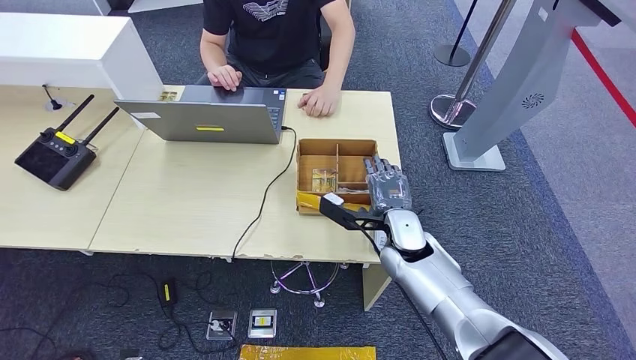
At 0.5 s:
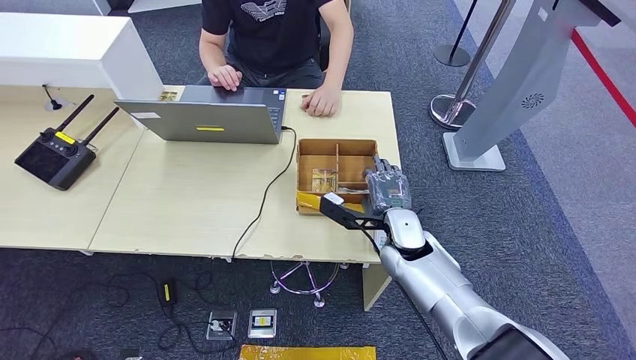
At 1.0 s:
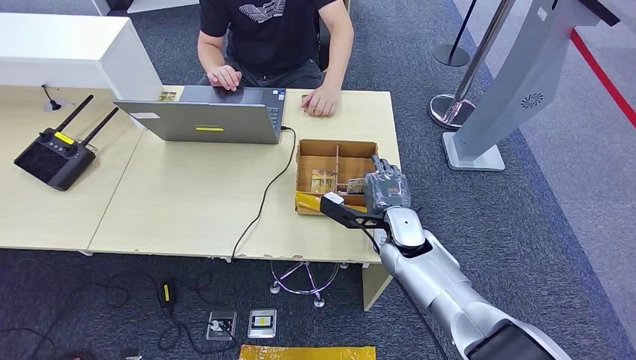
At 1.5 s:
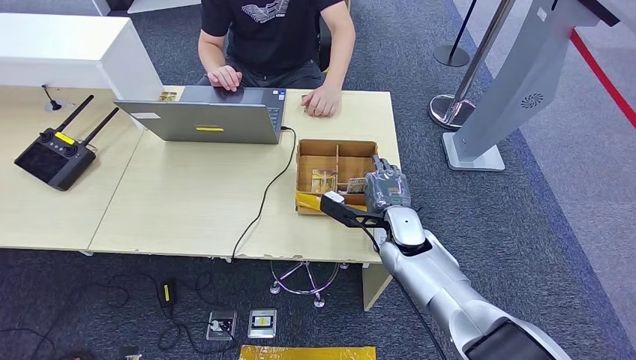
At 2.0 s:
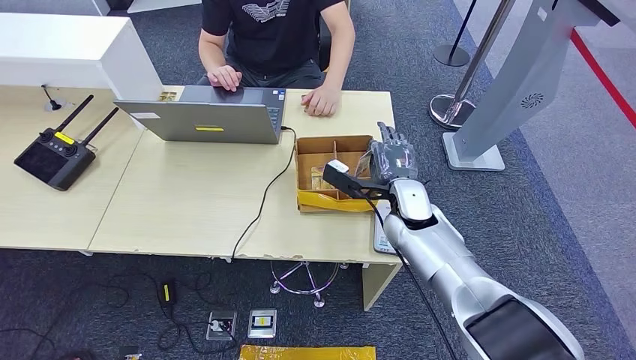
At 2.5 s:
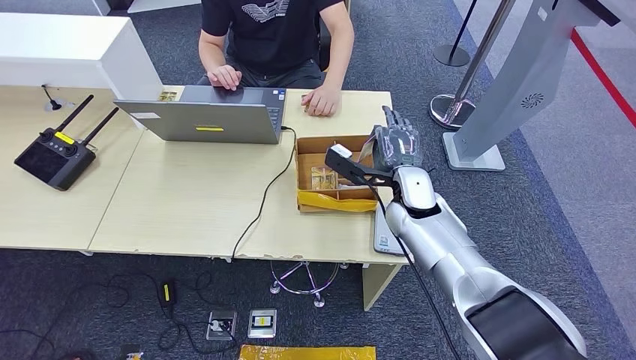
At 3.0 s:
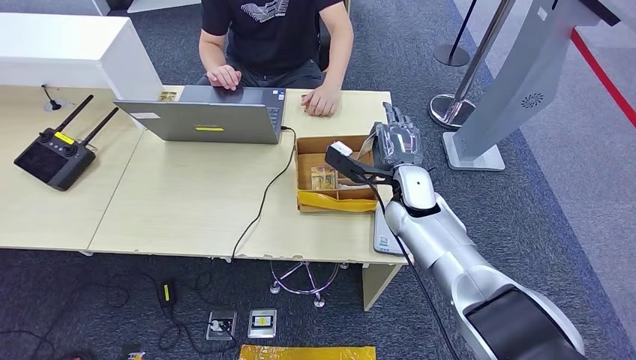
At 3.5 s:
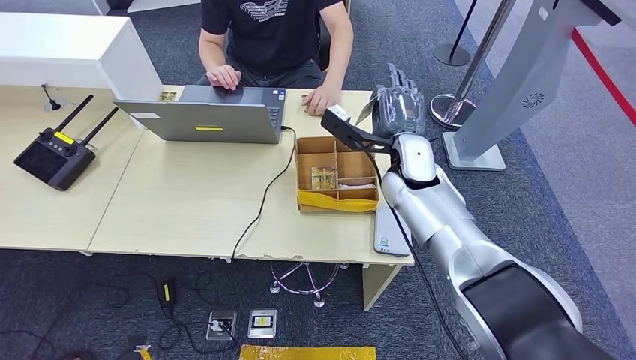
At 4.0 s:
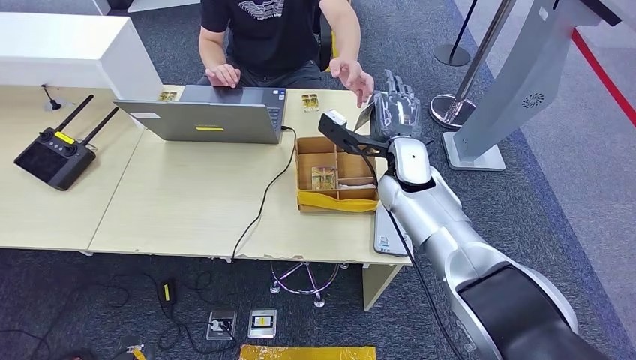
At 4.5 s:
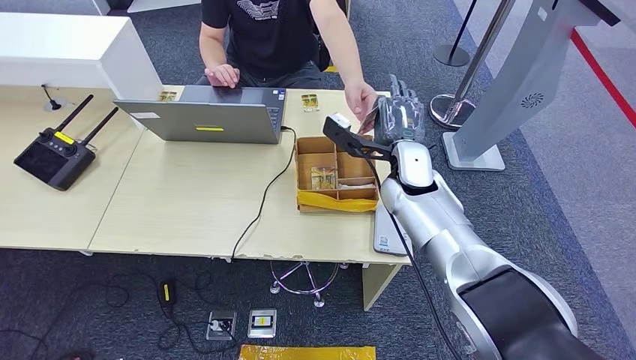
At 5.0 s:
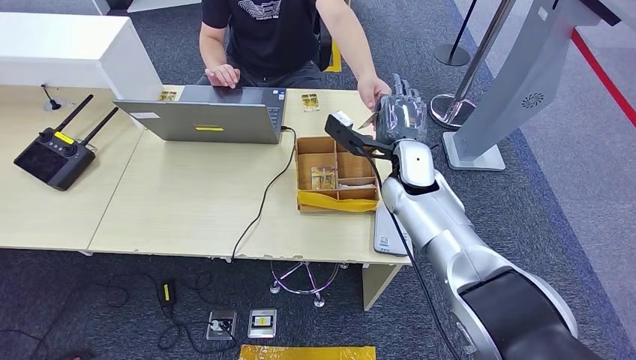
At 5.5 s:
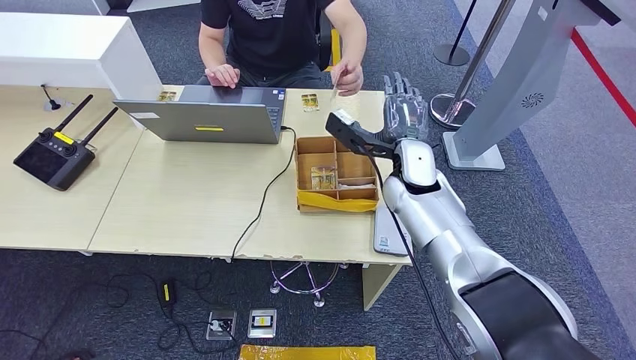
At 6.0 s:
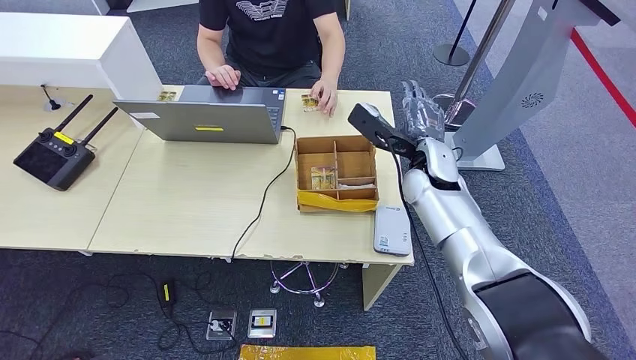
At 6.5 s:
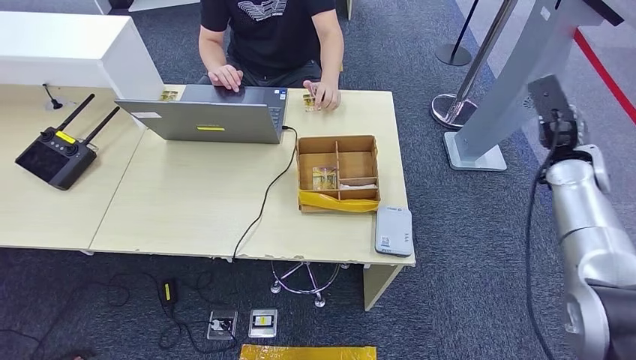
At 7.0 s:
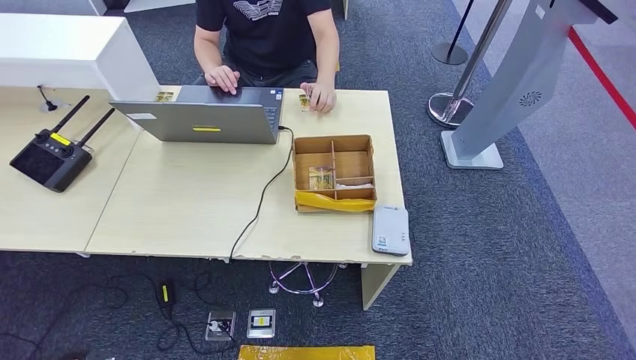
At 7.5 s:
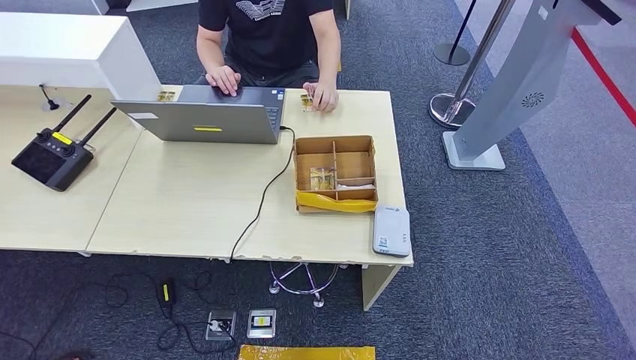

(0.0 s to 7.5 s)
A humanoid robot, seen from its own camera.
Step, 0.0 s - 2.0 s: Pick up the room key from the key card box.
Step, 3.5 s - 7.5 s: Hand the room key to the person.
0.0 s - 2.0 s: The right hand changes place by about 5 cm.
2.0 s - 4.0 s: The right hand is displaced upward by roughly 5 cm.
4.0 s - 5.5 s: The hands stay close to where they were, moving slightly.
5.5 s - 7.5 s: The right hand shifts roughly 50 cm to the right and backward.
